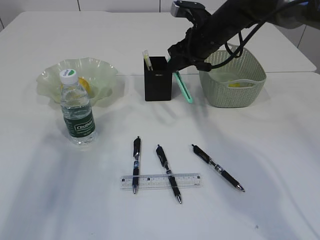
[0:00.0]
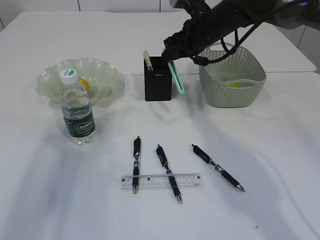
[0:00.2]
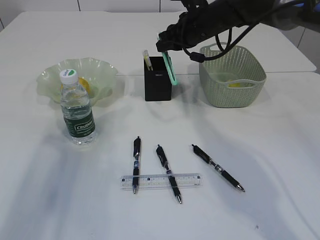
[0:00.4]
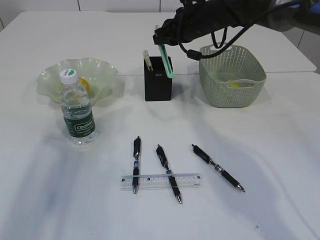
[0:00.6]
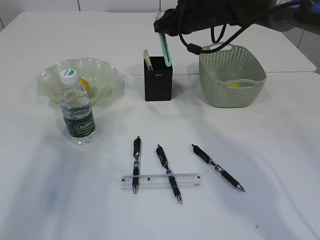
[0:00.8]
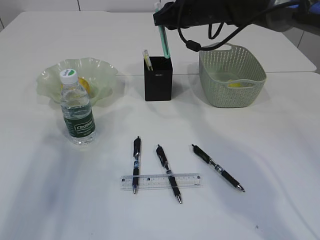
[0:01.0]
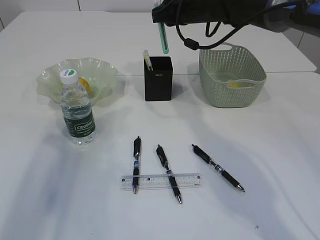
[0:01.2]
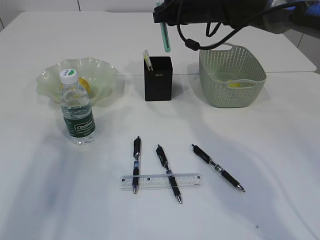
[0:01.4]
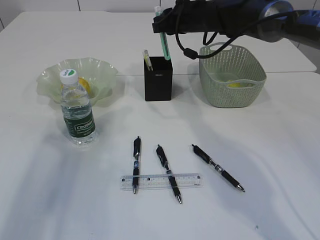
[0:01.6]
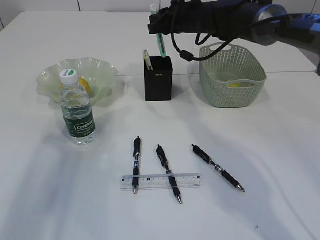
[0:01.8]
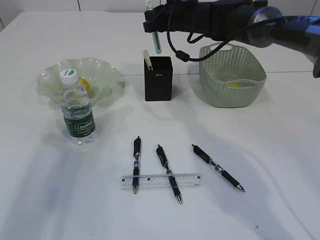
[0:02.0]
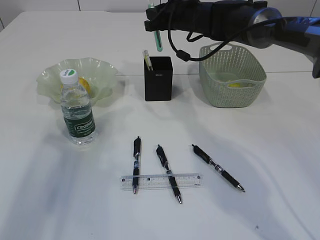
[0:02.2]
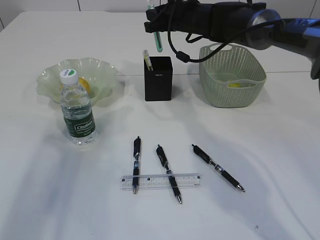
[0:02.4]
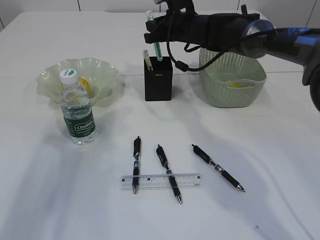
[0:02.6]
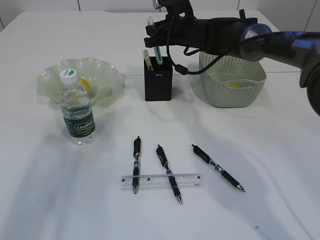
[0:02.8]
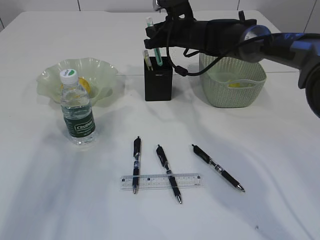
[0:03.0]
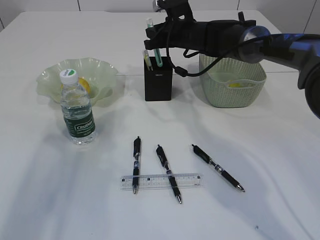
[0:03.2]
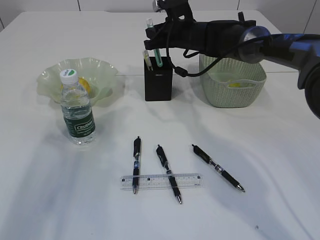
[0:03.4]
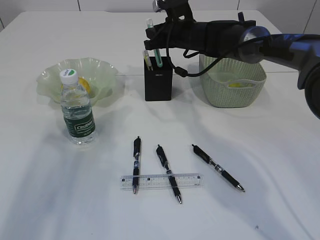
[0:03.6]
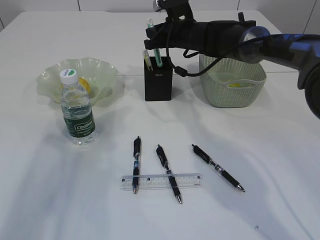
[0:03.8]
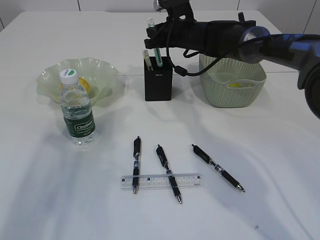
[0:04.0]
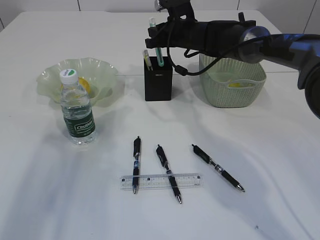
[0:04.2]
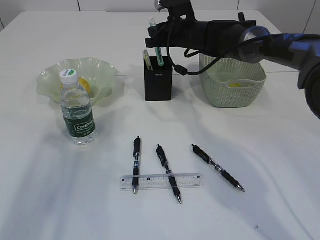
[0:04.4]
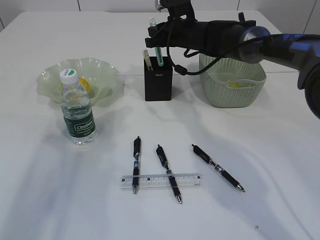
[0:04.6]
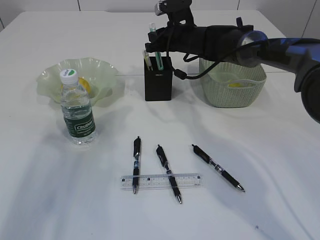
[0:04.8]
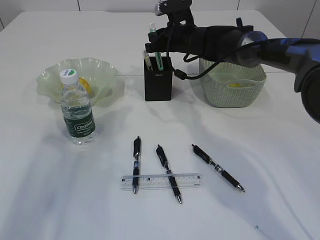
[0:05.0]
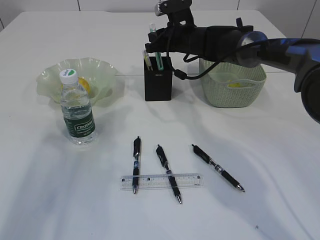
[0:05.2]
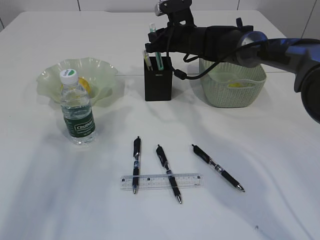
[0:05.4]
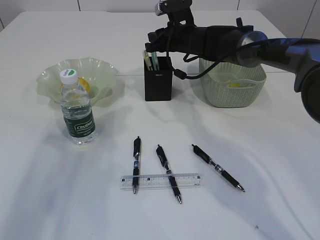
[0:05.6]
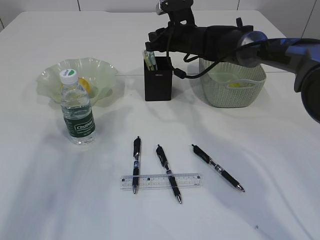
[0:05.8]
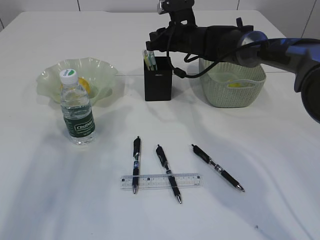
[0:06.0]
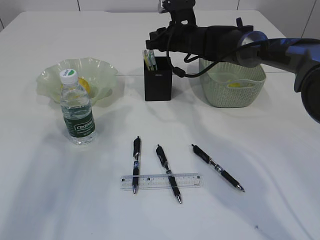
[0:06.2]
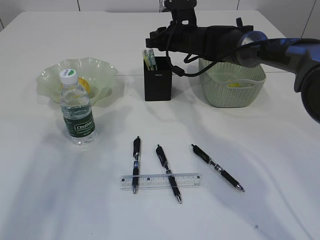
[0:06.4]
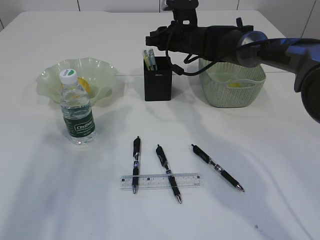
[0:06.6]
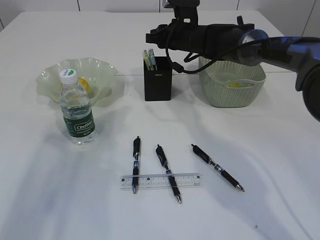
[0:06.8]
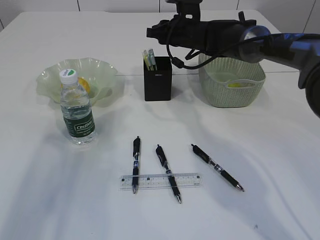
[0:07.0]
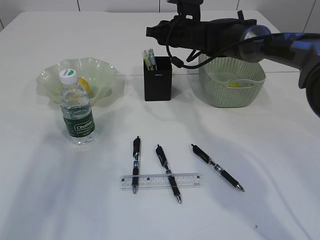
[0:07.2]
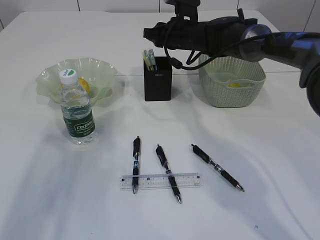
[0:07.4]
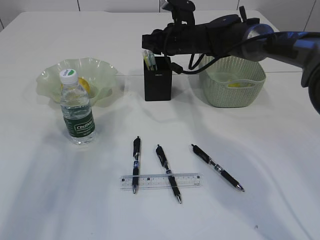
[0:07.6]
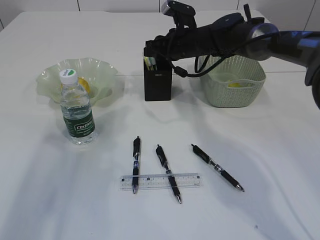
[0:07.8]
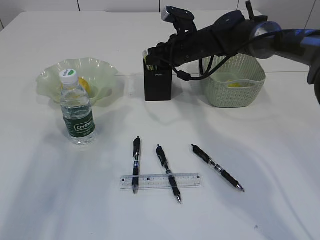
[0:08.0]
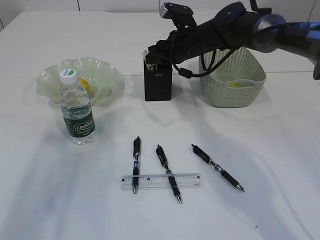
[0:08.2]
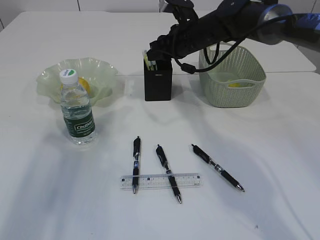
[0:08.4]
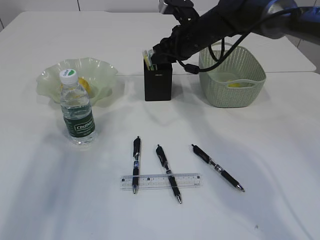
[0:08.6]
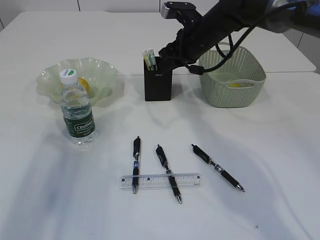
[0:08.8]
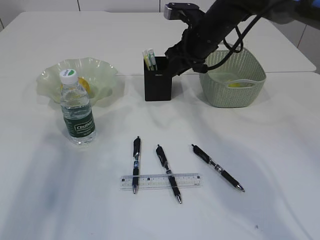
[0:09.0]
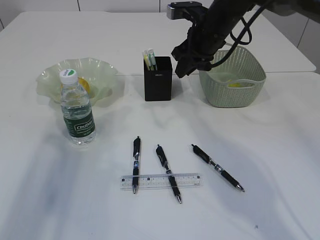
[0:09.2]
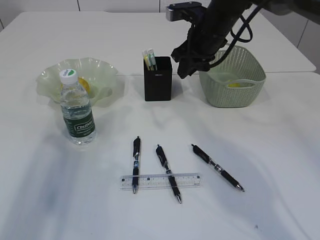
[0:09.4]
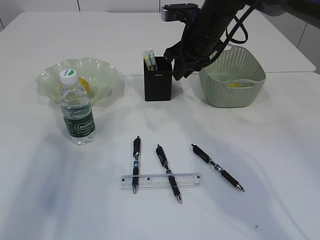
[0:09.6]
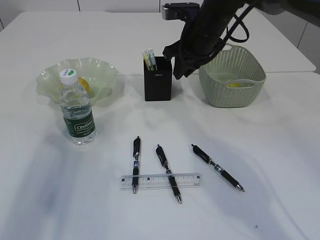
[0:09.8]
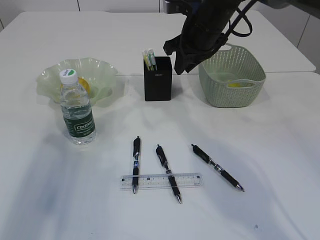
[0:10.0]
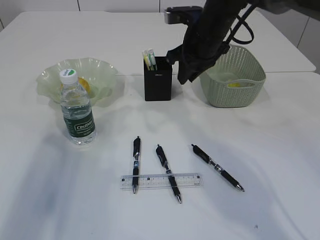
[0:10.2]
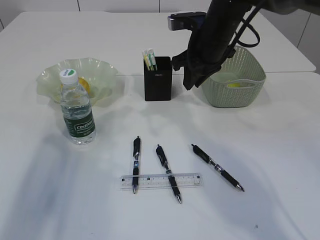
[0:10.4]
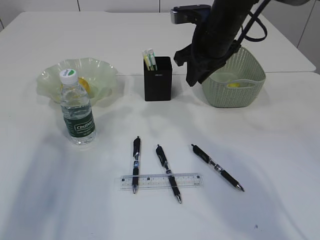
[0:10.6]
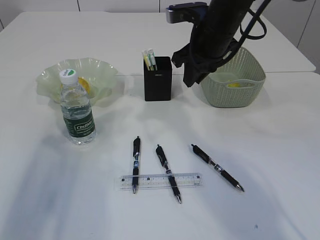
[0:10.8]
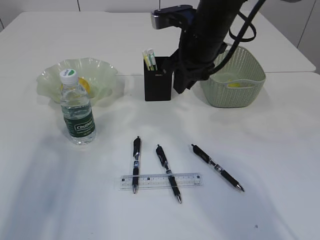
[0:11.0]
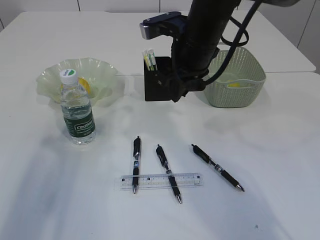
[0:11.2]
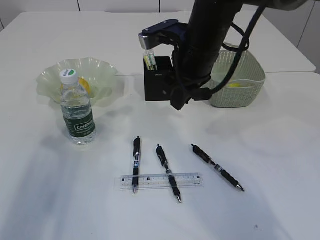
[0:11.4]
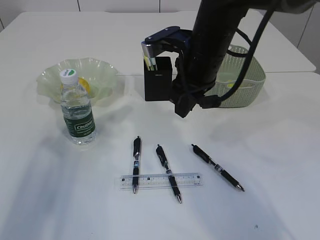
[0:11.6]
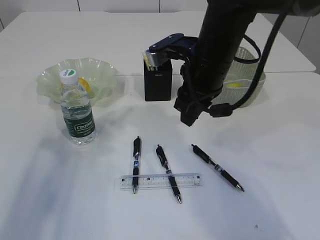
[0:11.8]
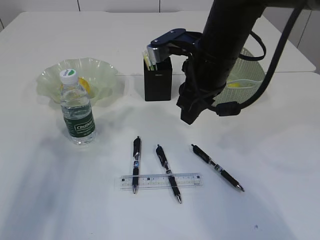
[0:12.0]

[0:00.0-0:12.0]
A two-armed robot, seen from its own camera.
Step, 0:00.0 to 0:07.2: Place the blue knife into the pen holder.
0:00.0 to 0:01.6: The right gripper changes place by approximately 5 cm.
0:01.6 to 0:03.0: The grippers stay close to where they were, moving slightly.
0:03.0 to 0:04.4: Both grippers stay put.
0:04.4 to 0:06.0: Both grippers stay about where they are.
0:07.6 to 0:09.0: The right gripper is displaced backward by approximately 5 cm.
0:09.0 to 0:10.4: The grippers make only small movements.
0:10.4 to 0:12.0: The right gripper heads backward, covering about 10 cm.

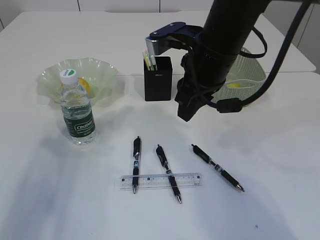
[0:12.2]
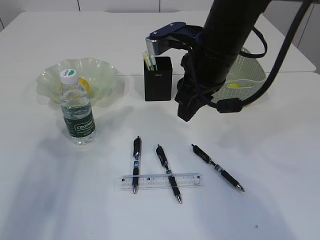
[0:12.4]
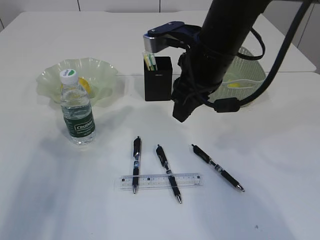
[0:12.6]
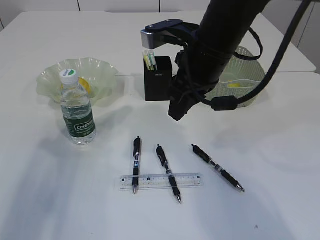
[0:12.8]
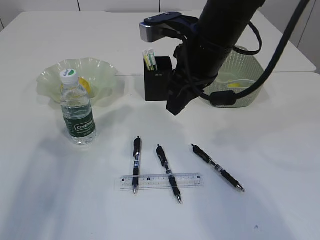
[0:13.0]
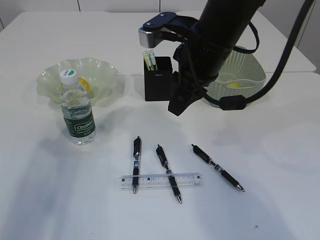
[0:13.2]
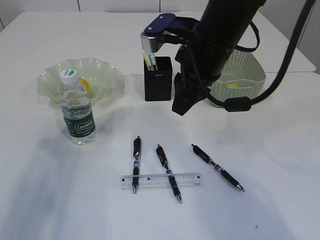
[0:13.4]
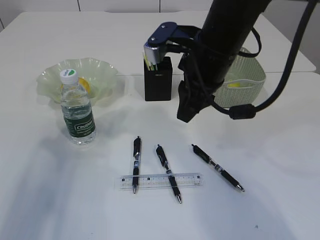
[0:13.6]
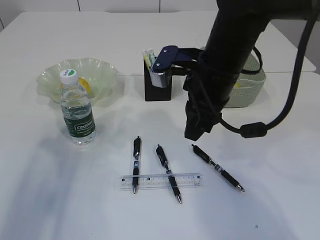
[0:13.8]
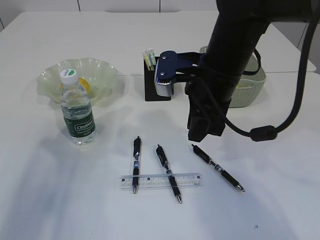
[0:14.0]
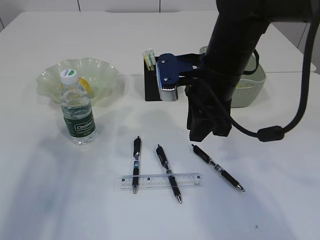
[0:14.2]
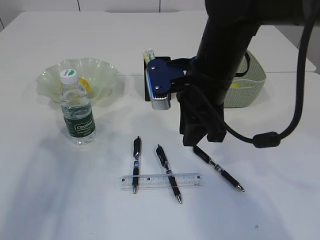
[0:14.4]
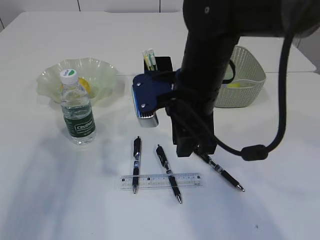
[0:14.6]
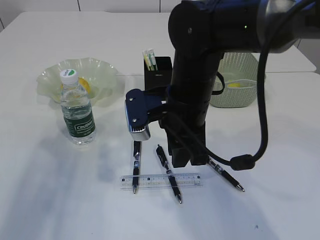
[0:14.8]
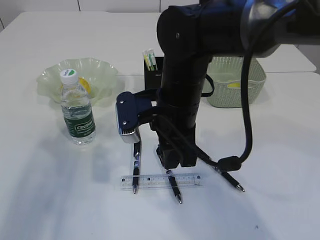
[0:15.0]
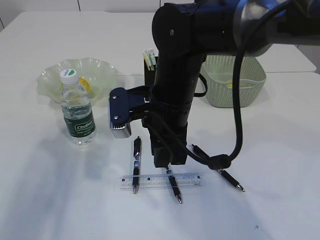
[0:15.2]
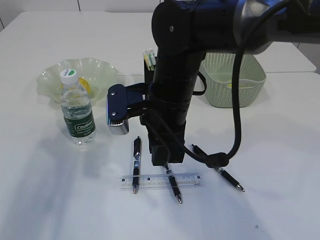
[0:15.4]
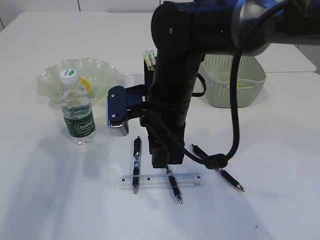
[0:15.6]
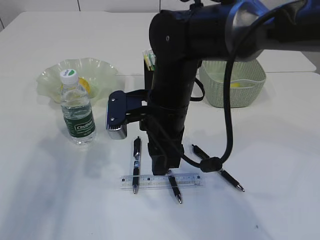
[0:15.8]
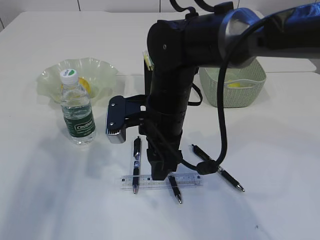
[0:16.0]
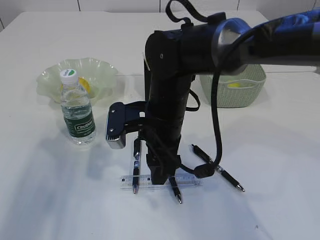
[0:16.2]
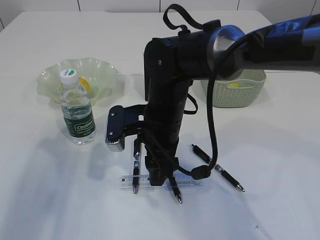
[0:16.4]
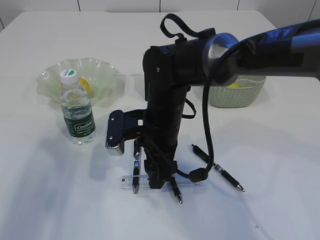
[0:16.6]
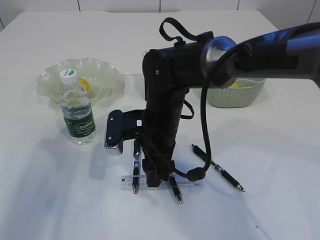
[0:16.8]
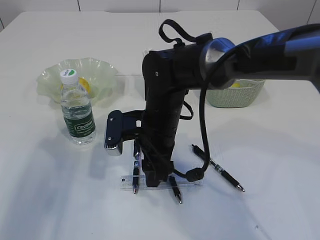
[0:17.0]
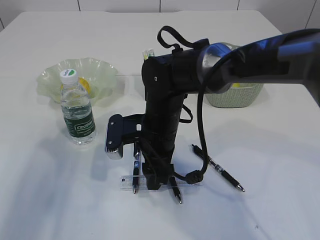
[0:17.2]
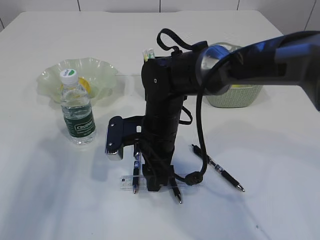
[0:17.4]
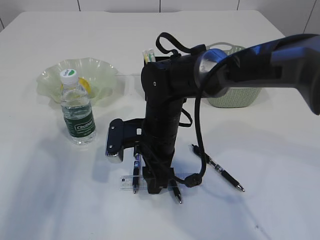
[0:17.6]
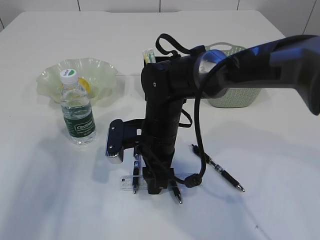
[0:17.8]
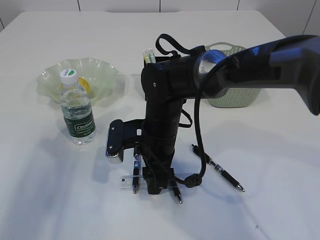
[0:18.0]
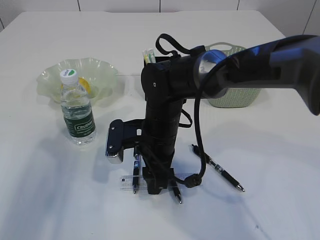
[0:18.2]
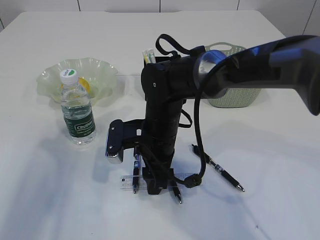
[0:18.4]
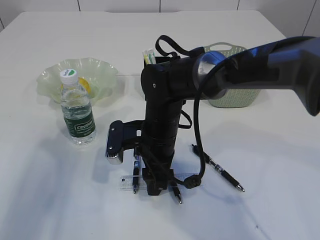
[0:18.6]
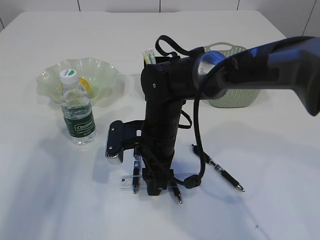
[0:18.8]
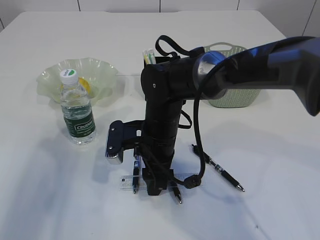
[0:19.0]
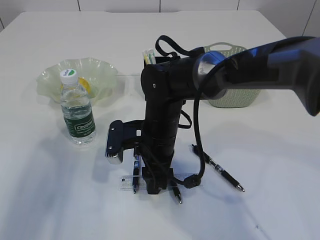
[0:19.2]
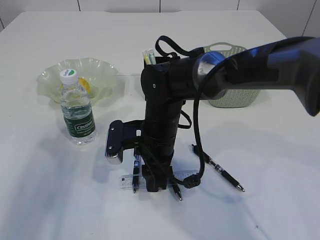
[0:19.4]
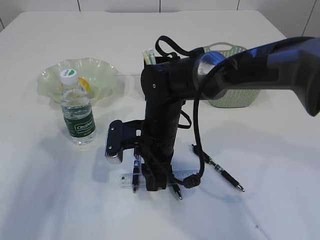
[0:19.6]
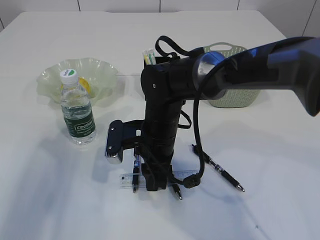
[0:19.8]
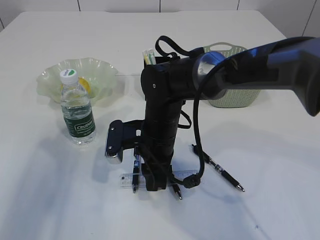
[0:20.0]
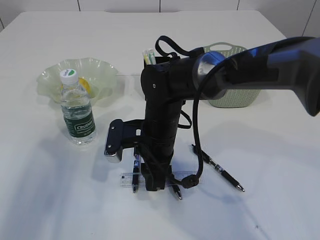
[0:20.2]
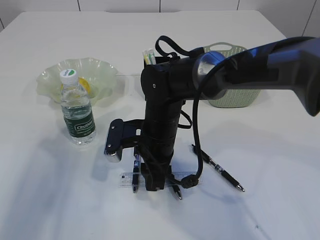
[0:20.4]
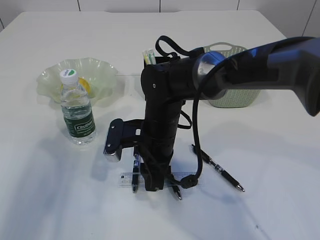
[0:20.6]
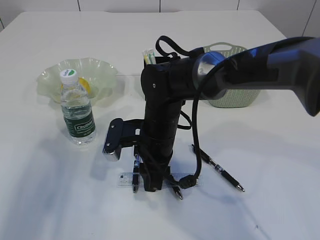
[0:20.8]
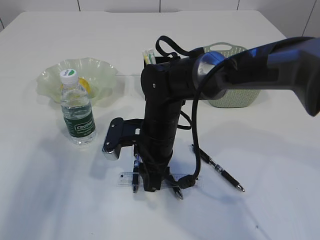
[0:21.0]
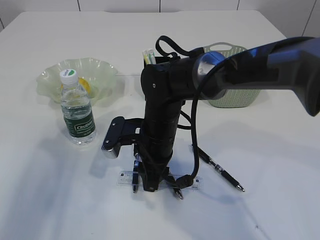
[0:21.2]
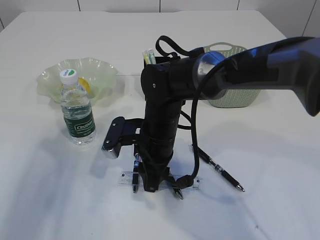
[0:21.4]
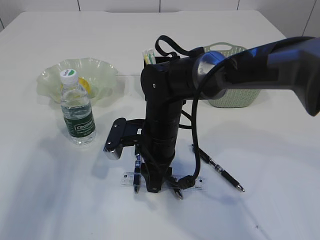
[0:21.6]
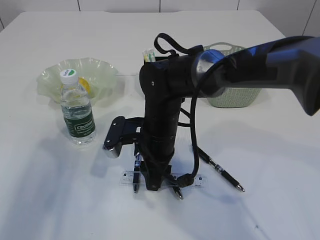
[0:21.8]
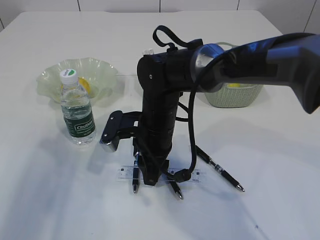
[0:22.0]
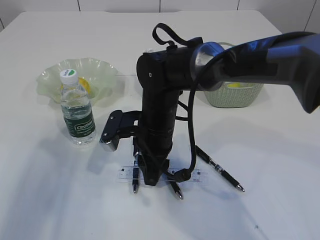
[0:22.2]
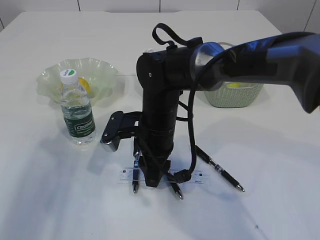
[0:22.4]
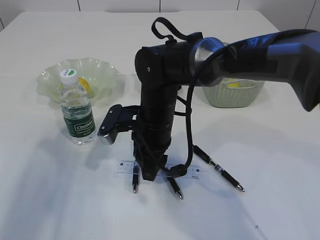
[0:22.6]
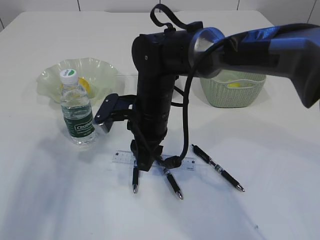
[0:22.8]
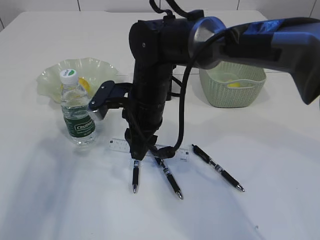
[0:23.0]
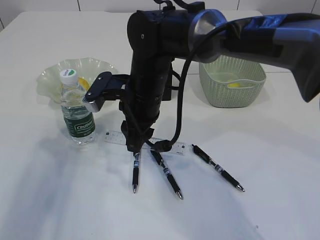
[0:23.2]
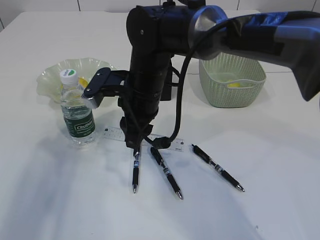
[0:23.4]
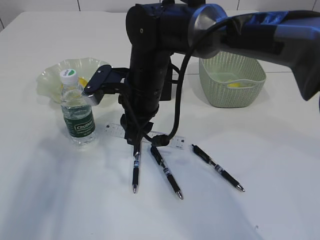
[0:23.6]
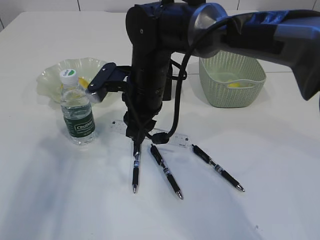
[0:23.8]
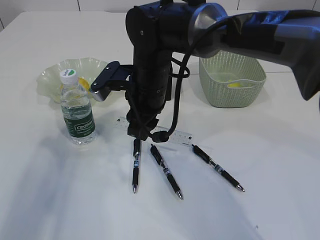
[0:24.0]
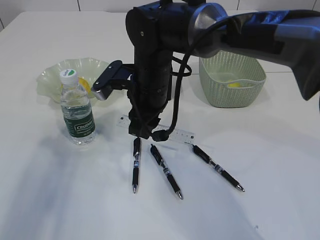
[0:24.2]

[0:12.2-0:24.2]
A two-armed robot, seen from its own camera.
0:12.2 to 0:13.8: The grippers move only a little.
0:13.8 to 0:15.2: The right gripper goes some 5 cm to the left.
0:15.2 to 0:16.6: The right gripper heads downward, covering about 5 cm, and opens up.
0:16.6 to 0:18.2: The grippers make only small movements.
0:18.2 to 0:19.8: Neither gripper changes place.
0:19.8 to 0:22.6: The grippers move only a little.
0:22.6 to 0:24.2: The right gripper travels upward by some 5 cm.
